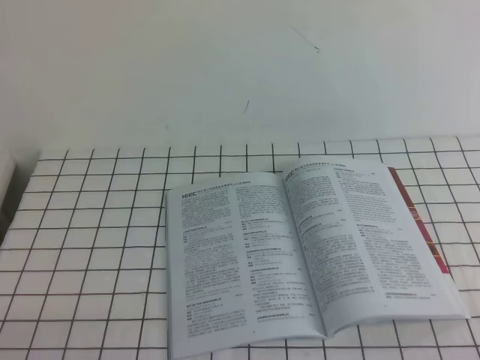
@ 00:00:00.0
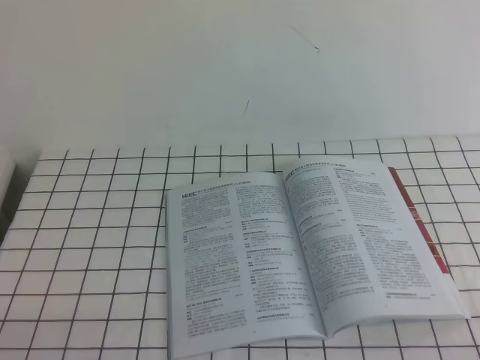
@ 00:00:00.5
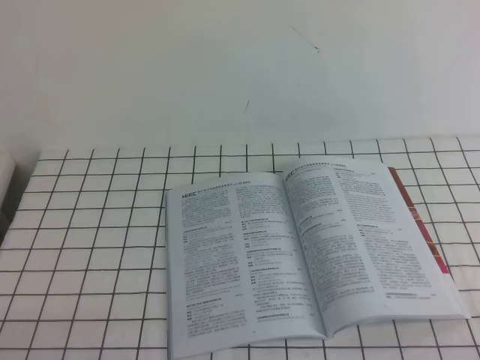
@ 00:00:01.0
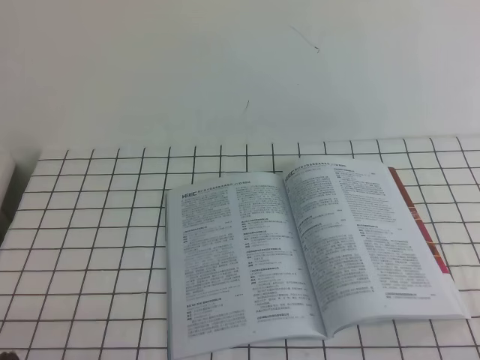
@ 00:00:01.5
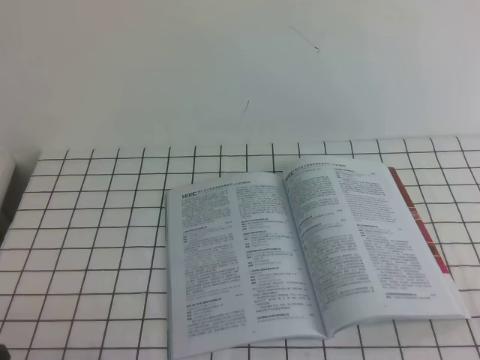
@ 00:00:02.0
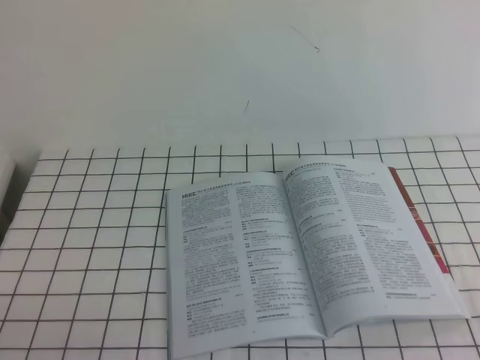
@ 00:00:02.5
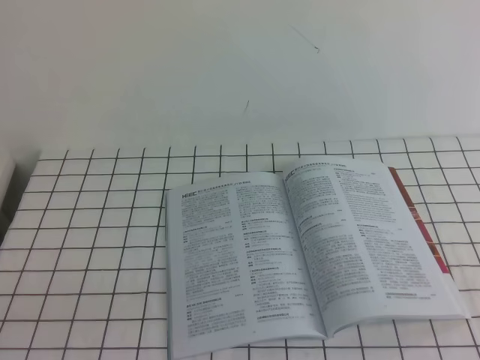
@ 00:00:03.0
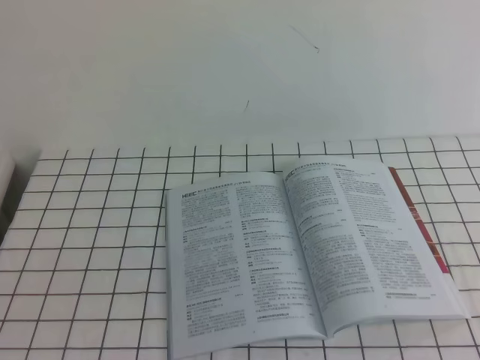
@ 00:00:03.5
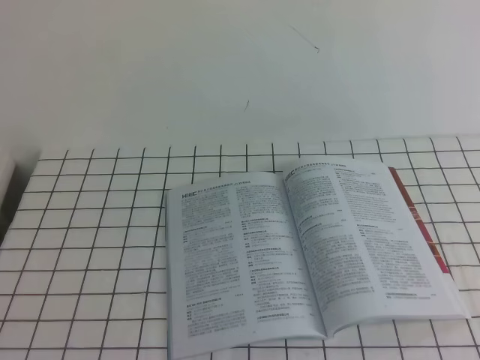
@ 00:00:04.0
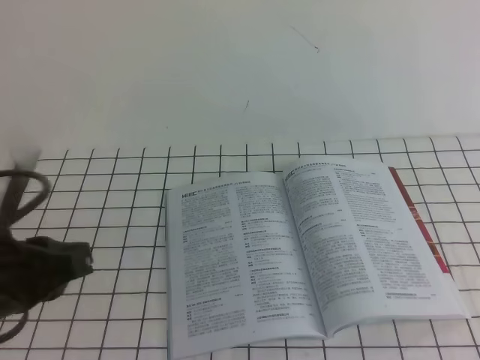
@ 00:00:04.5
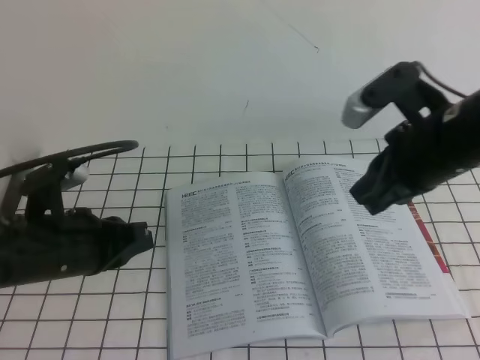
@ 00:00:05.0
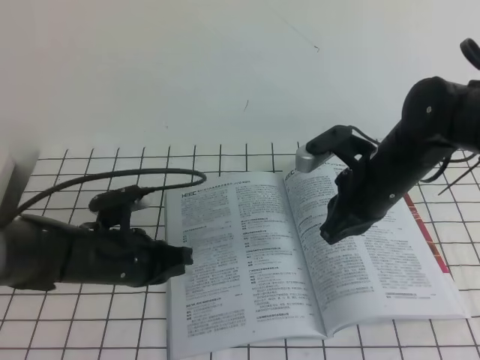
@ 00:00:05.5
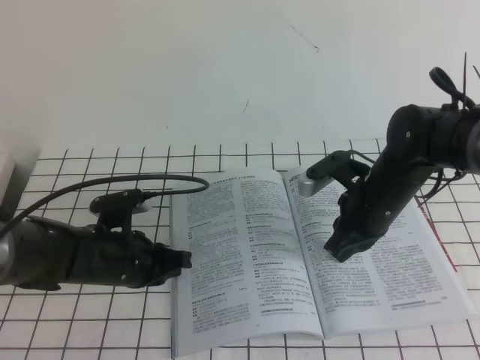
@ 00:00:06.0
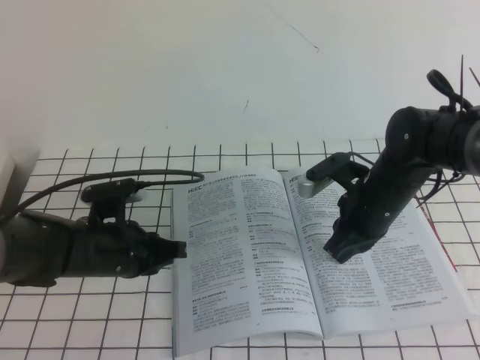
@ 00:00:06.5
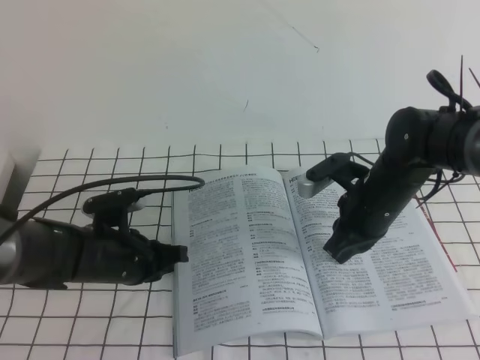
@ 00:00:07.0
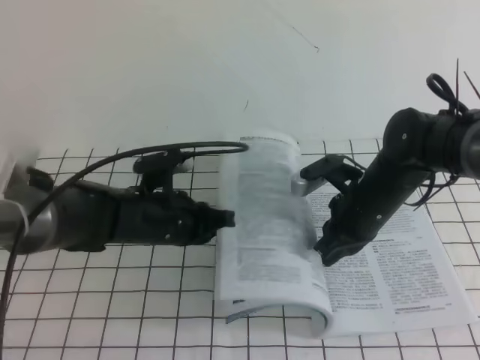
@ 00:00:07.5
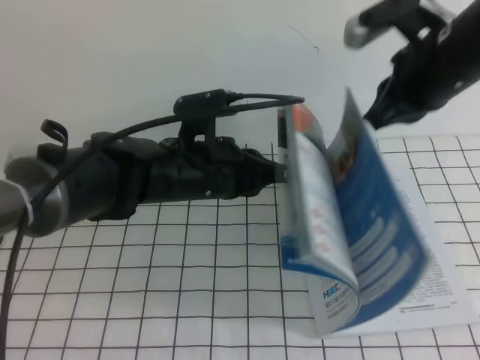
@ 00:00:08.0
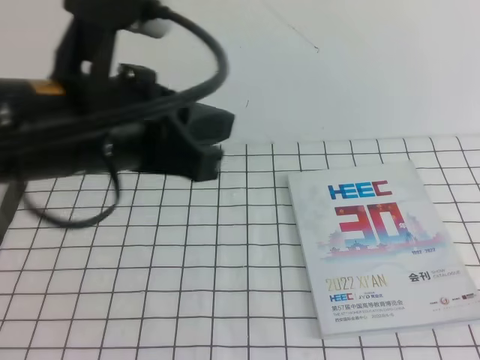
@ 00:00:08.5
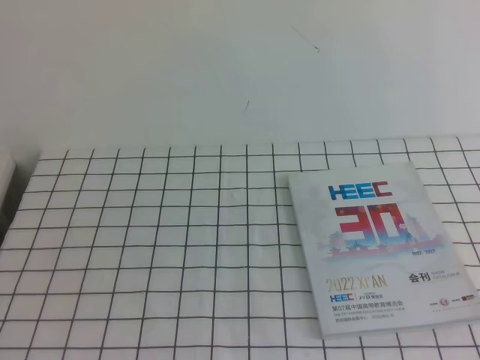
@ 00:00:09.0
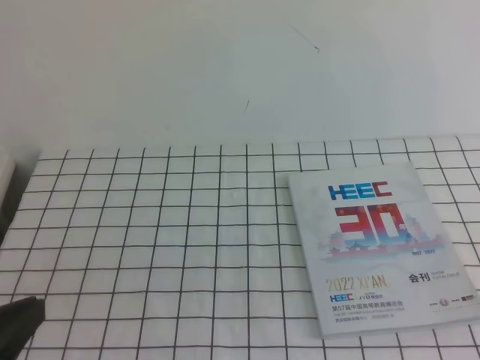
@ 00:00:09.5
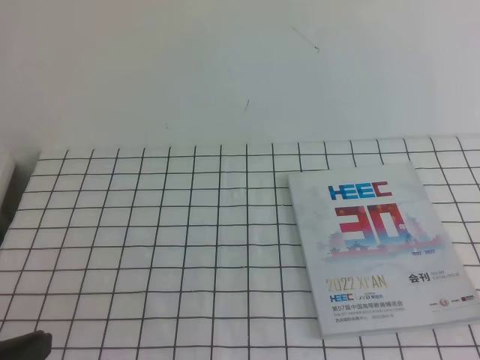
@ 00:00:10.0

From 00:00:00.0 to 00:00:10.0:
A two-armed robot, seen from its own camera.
Task of the whole recording: on the white tablecloth, hold the book with one hand and close it with the other.
From 00:00:04.0 to 00:00:06.0: The left gripper travels forward and downward by some 35 cm. Meanwhile the right gripper moves forward, downward and to the left, some 40 cm.
From 00:00:06.0 to 00:00:08.0: The left gripper shifts roughly 15 cm upward and to the right; the right gripper moves upward, about 15 cm.
From 00:00:08.0 to 00:00:10.0: The right gripper heads backward and to the right, covering roughly 30 cm, while the left gripper travels backward and to the left by roughly 30 cm.

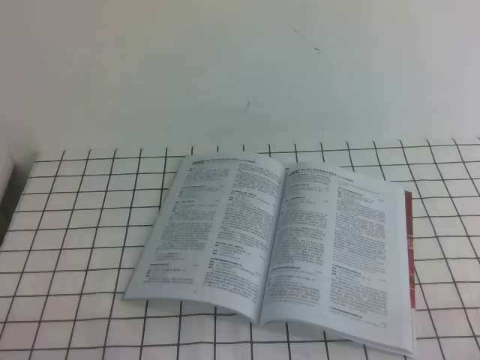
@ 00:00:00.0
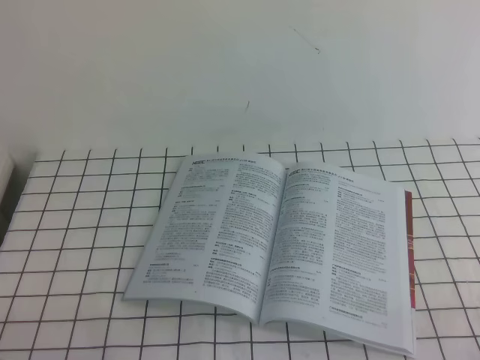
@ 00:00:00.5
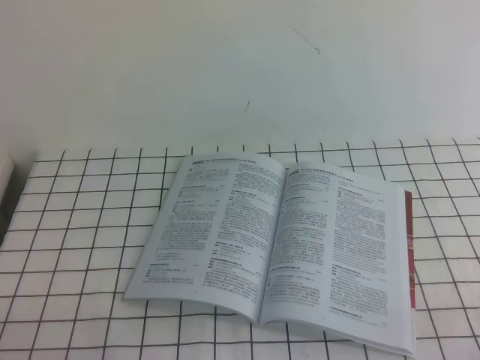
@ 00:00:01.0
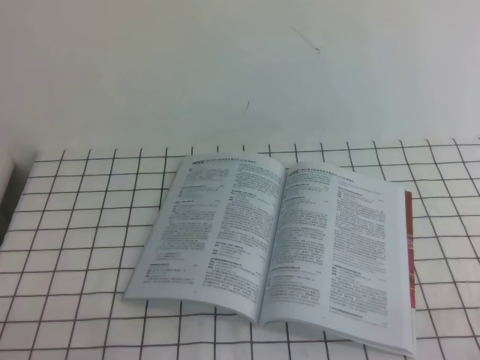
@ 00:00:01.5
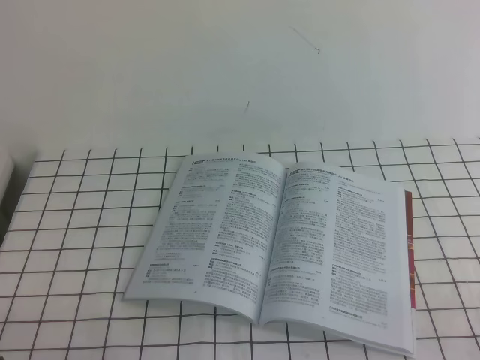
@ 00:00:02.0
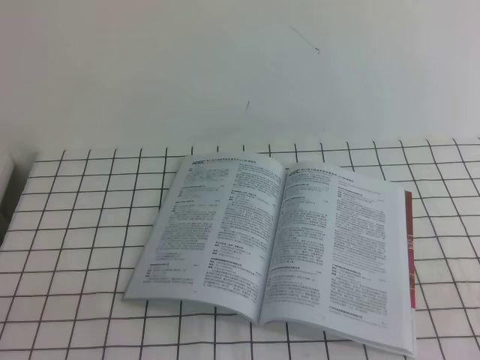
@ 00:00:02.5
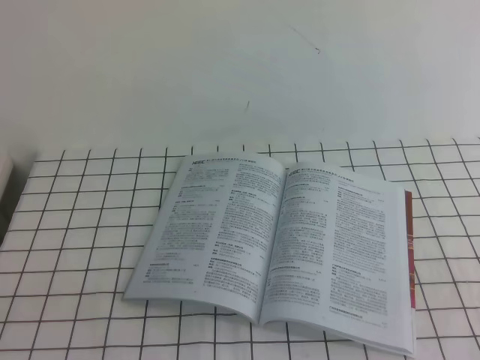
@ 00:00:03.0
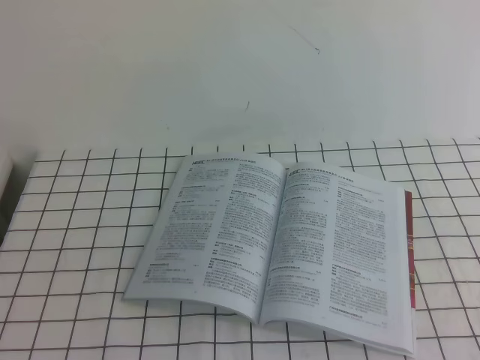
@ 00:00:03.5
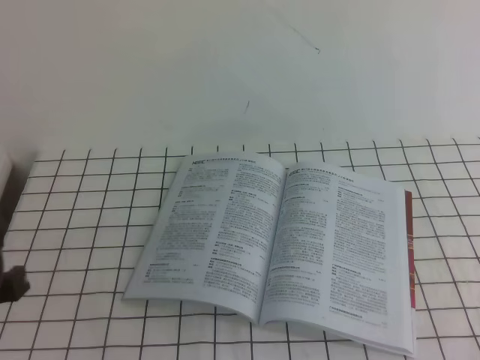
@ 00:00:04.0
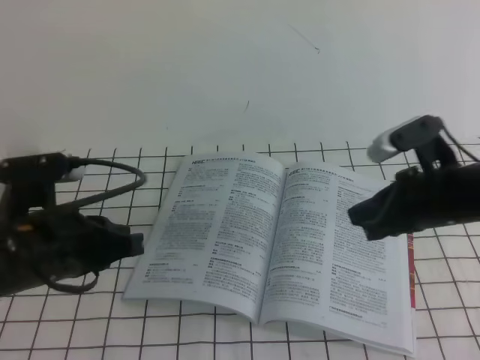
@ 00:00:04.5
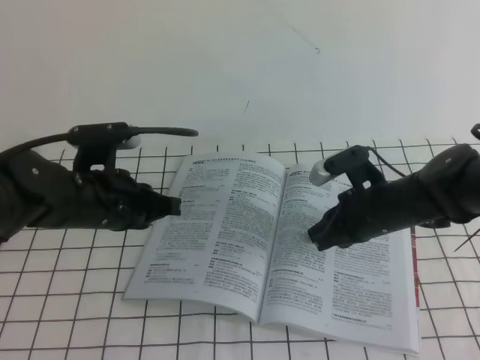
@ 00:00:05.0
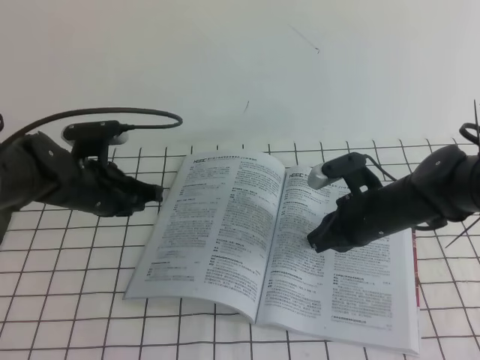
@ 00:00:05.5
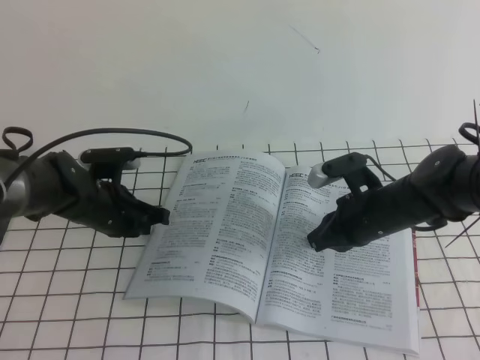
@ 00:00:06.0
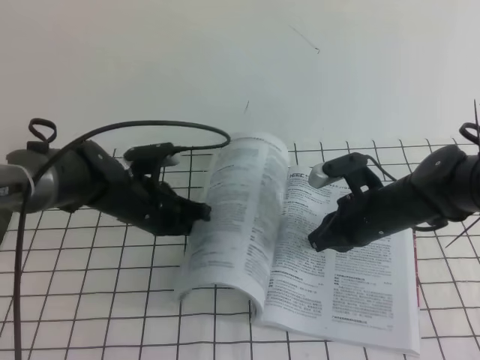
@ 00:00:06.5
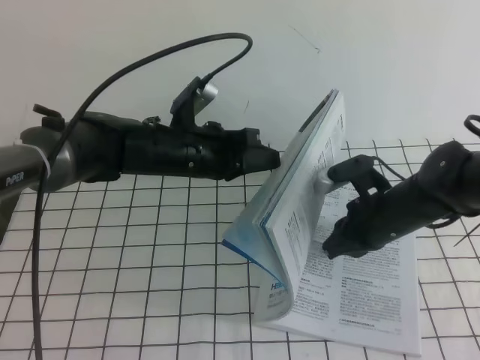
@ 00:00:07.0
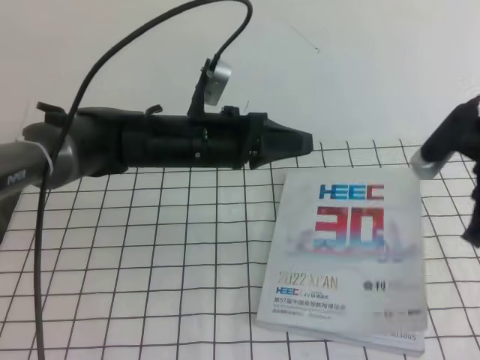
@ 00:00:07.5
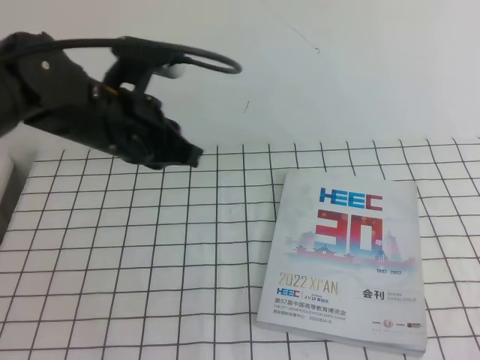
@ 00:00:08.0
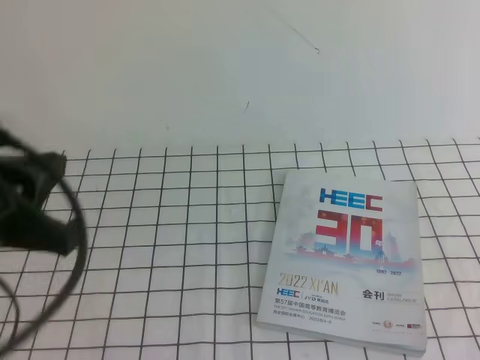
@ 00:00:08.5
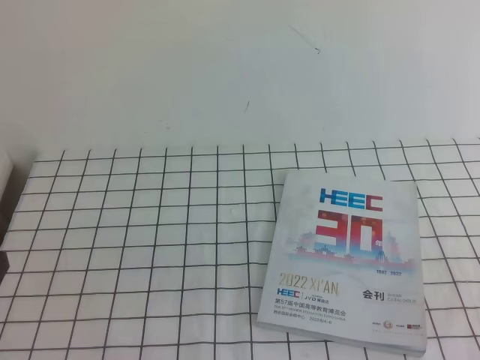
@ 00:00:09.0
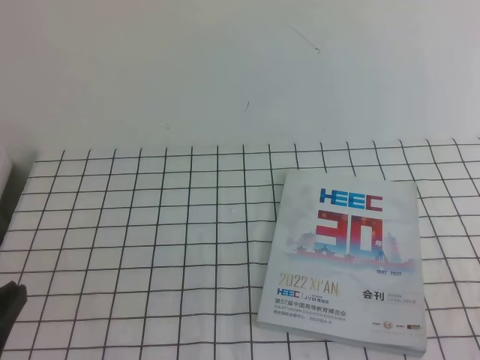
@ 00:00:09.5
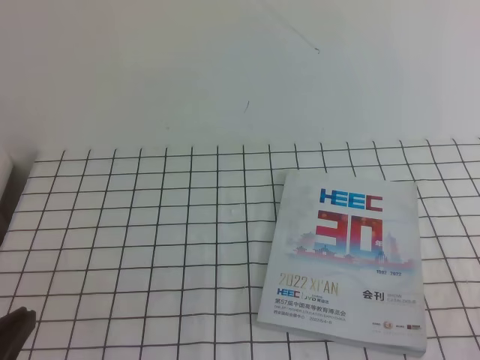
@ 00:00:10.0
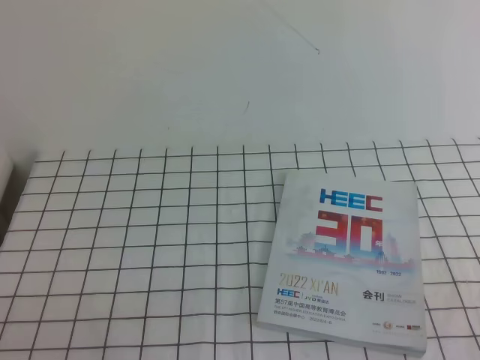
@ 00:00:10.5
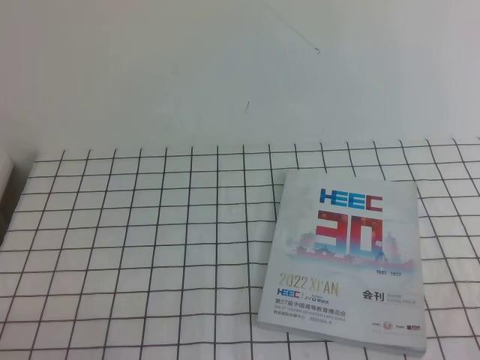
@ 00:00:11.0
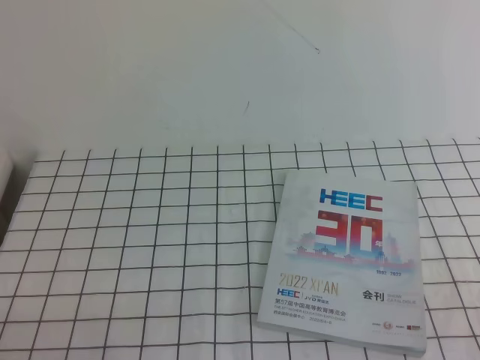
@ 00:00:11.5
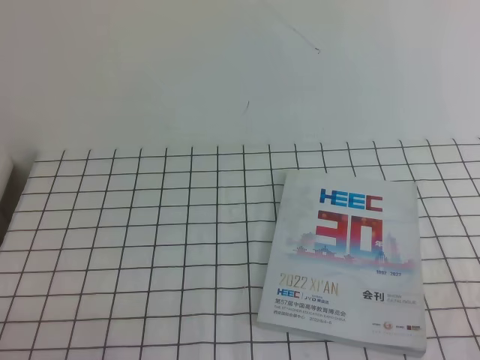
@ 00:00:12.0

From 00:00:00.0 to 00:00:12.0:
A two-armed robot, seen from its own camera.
Task of the whole recording: on the white tablecloth, hold the book with one hand and close it with the other.
From 00:00:02.0 to 00:00:04.0: The left gripper travels upward and forward by about 15 cm.
From 00:00:04.0 to 00:00:06.0: The left gripper moves forward and downward, approximately 30 cm. Meanwhile the right gripper shifts some 30 cm downward, forward and to the left.
From 00:00:06.0 to 00:00:08.0: The left gripper shifts about 20 cm upward and to the right, while the right gripper goes some 35 cm upward, backward and to the right.
From 00:00:08.0 to 00:00:10.0: The left gripper moves backward and to the left, about 30 cm. The right gripper shifts about 20 cm backward and downward.
From 00:00:10.0 to 00:00:12.0: The left gripper travels downward by some 10 cm.

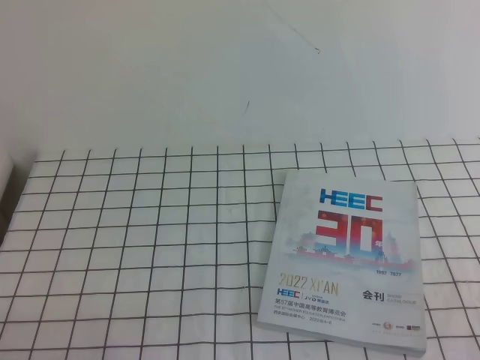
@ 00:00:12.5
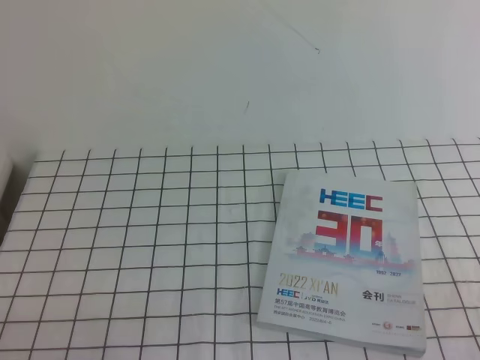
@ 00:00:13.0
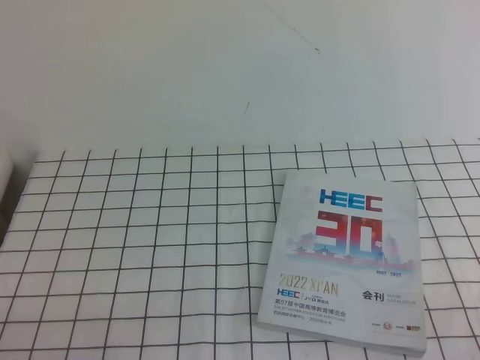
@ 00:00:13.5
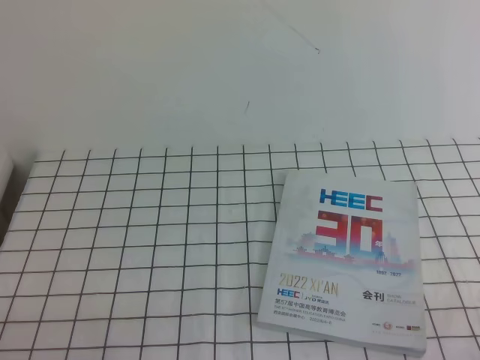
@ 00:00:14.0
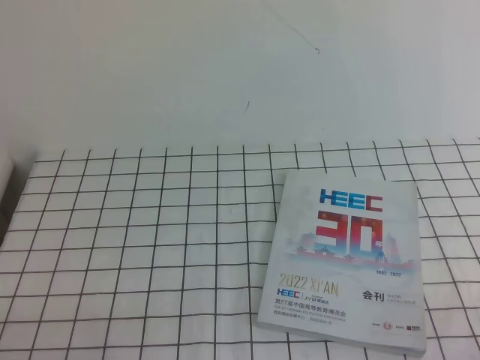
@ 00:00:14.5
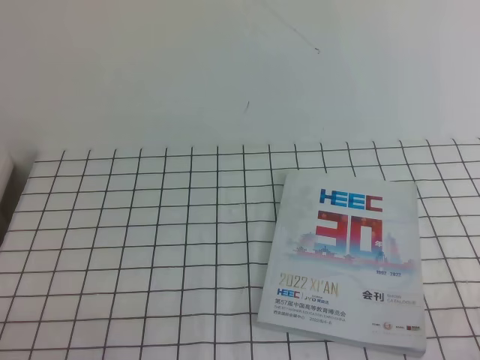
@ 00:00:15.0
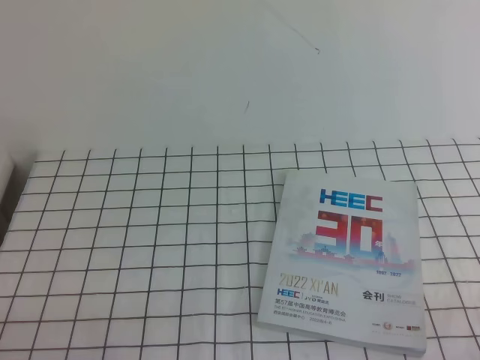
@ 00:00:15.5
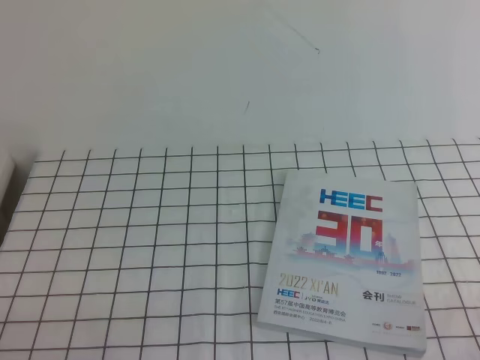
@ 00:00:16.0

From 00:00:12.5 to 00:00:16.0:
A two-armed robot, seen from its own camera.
Task of the whole recording: on the white tablecloth, hold the book with one hand and close it with the other.
From 00:00:14.5 to 00:00:16.0: Both grippers stay put.
